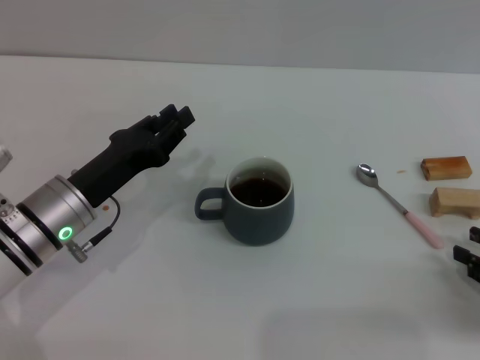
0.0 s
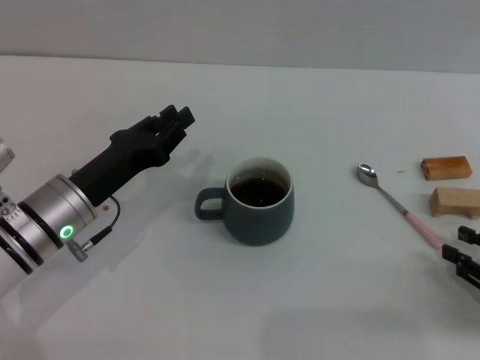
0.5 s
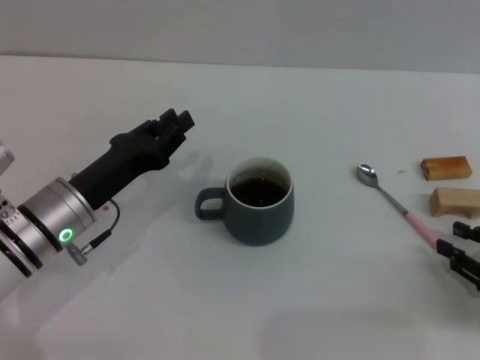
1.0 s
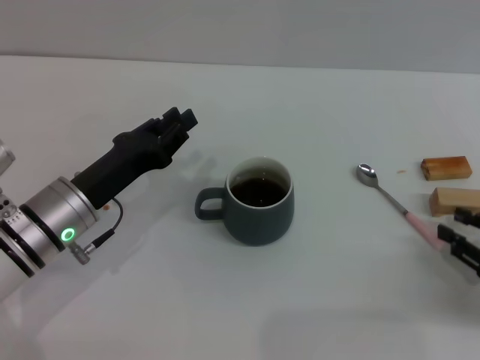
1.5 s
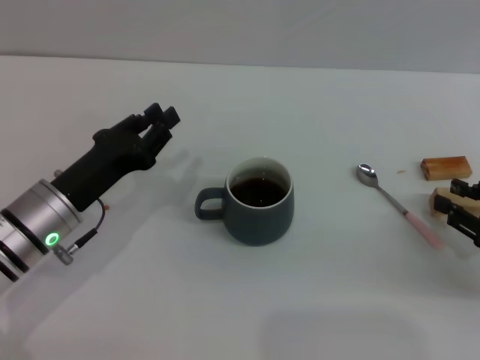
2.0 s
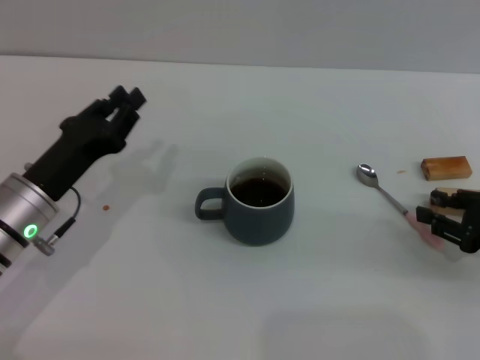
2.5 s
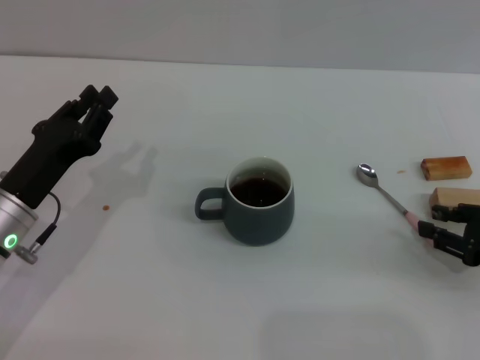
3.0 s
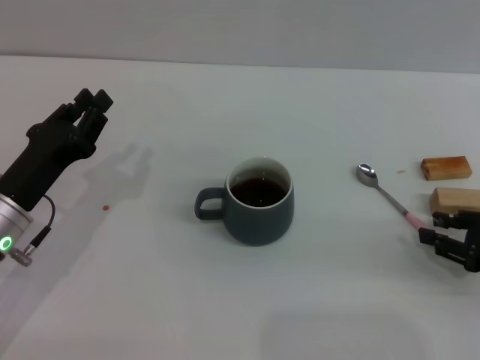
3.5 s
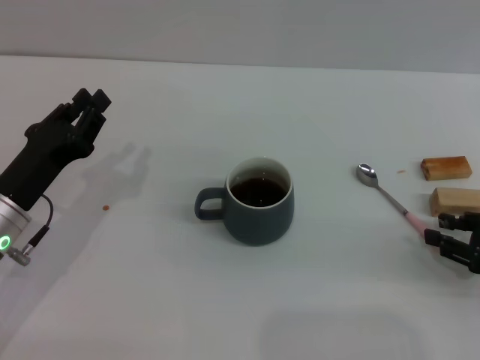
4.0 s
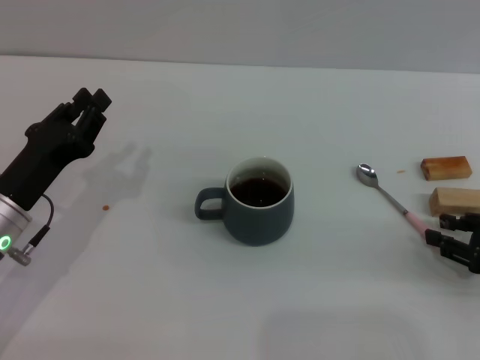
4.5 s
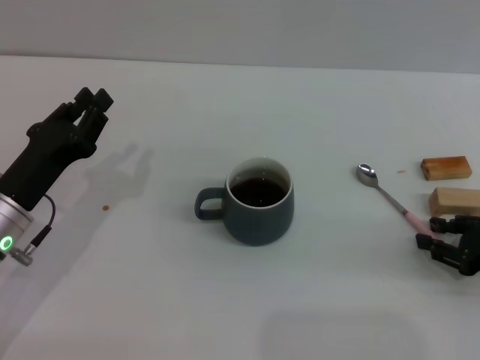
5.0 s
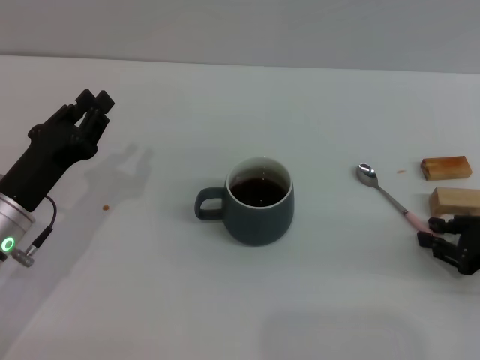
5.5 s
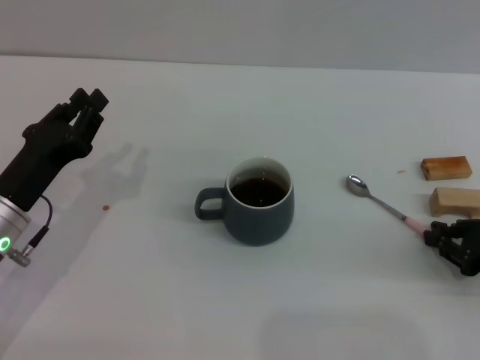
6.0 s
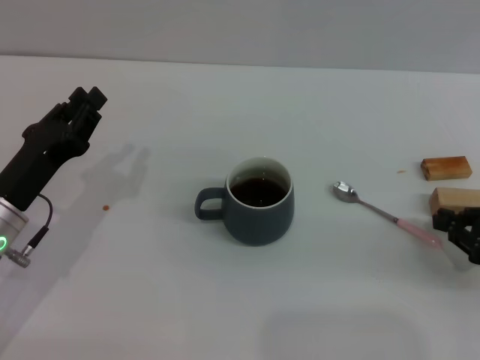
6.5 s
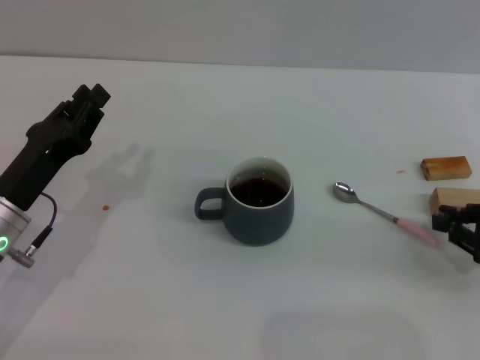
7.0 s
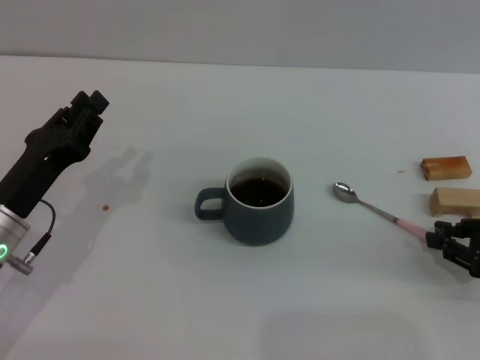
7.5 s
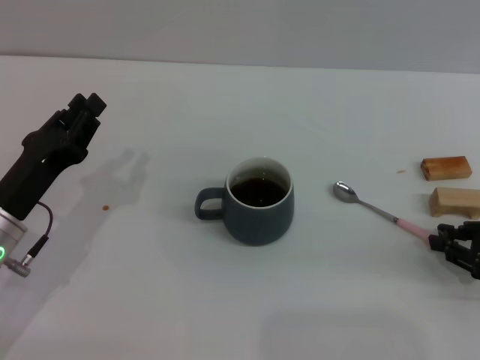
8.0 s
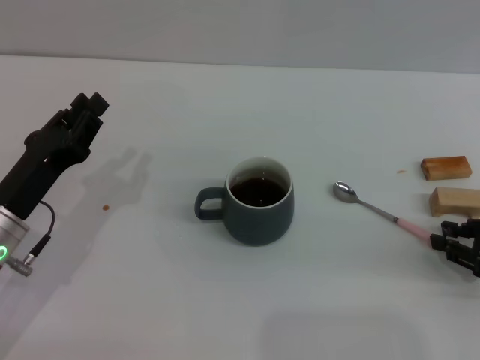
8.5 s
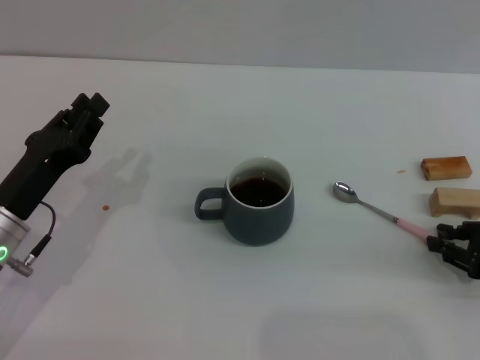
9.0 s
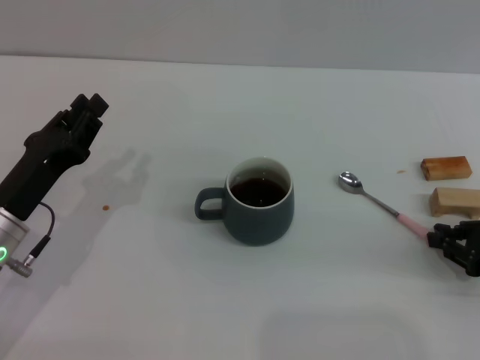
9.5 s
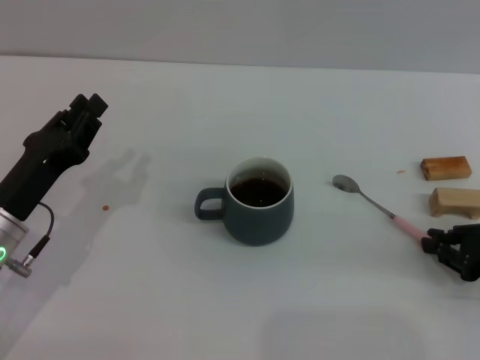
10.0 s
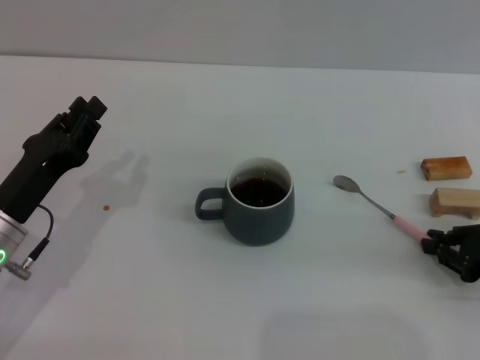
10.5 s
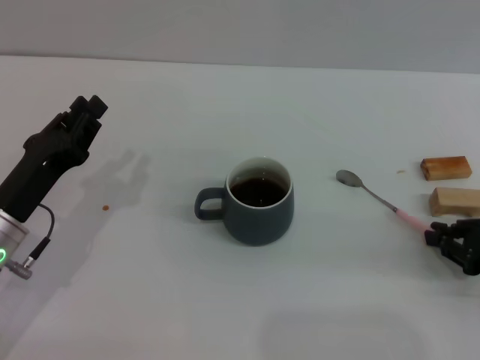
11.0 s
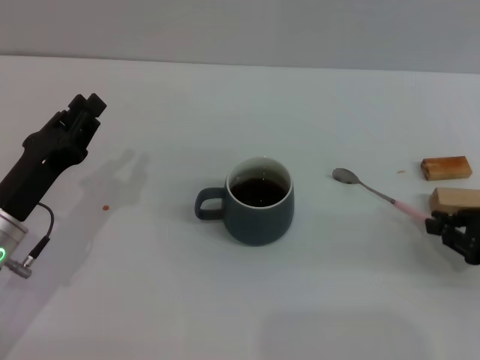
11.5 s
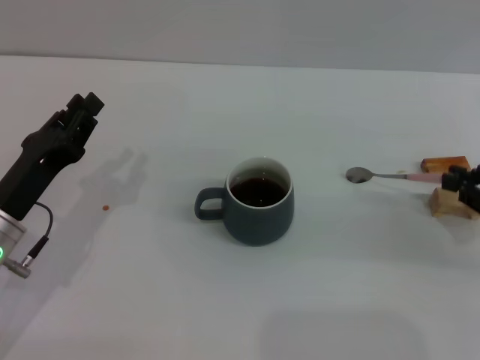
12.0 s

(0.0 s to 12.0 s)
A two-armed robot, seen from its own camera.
Task of the whole recording: Move the grey cup to the center, lift the pink spoon, stir it three times in the cup, and put the spoon into the cup.
0.0 s - 2.0 s: There are only small adjustments of the grippers.
2.0 s - 4.0 s: The grippers stay close to where they were, moving slightly.
4.0 s - 6.0 s: The right gripper closes its fingers.
6.0 s - 8.0 s: There are only small adjustments of the grippers.
8.0 s - 10.0 s: Both grippers stay put.
10.0 s - 12.0 s: The right gripper ends up approximately 5 cm from where it was.

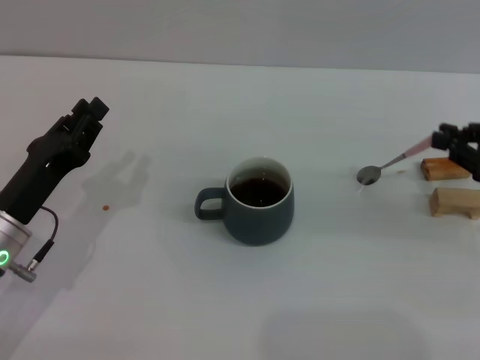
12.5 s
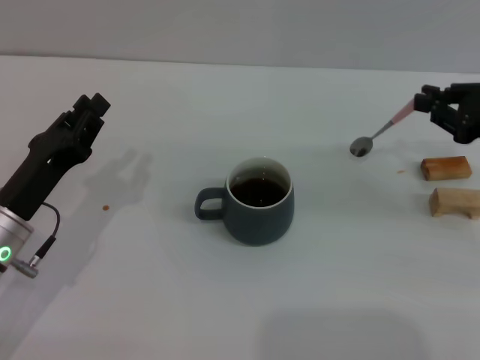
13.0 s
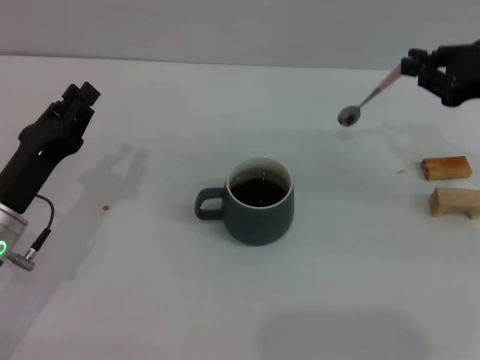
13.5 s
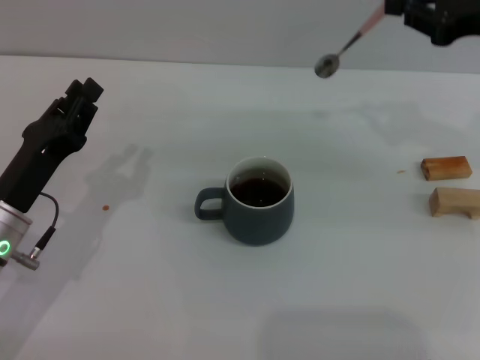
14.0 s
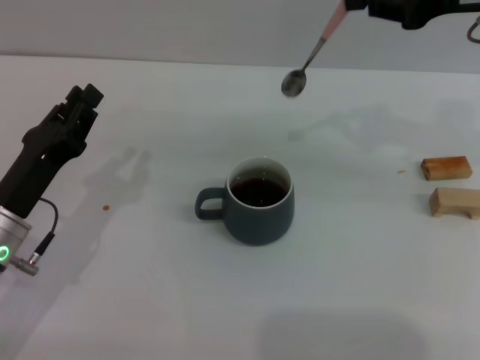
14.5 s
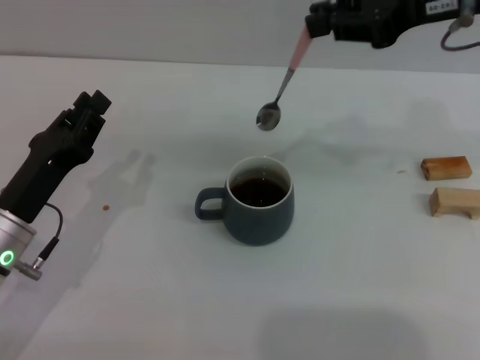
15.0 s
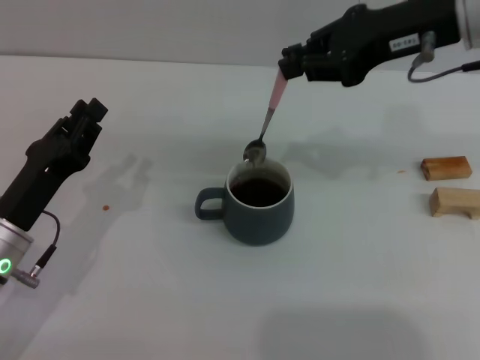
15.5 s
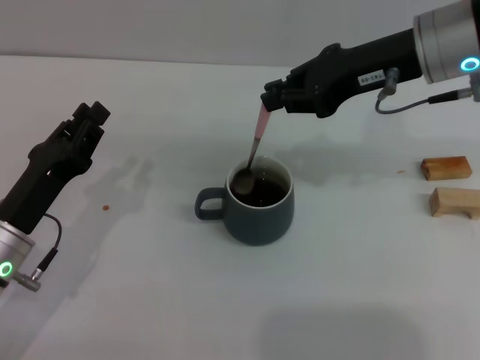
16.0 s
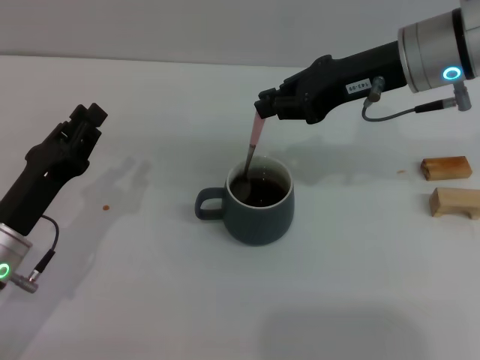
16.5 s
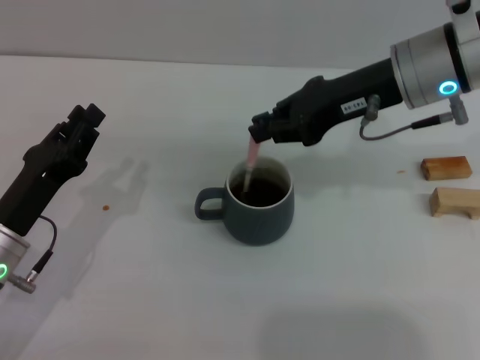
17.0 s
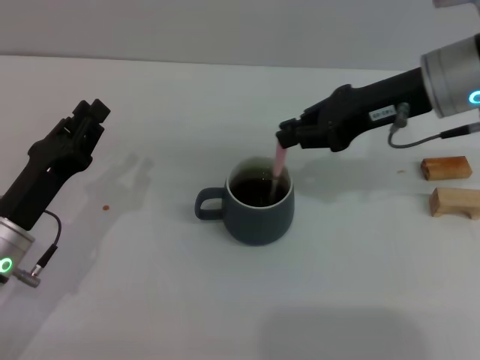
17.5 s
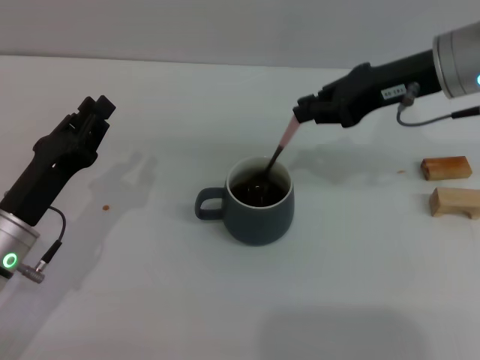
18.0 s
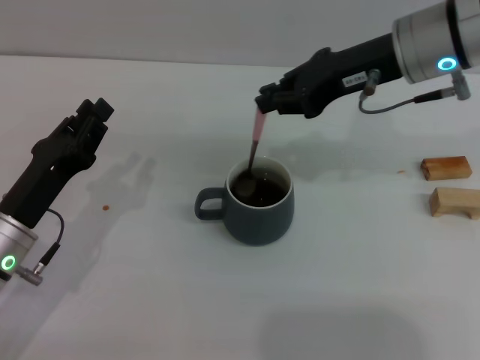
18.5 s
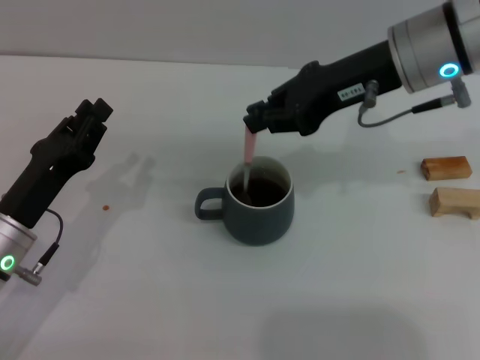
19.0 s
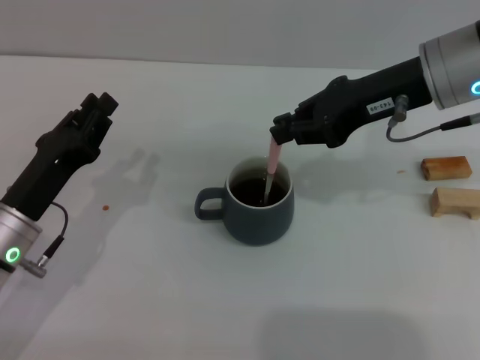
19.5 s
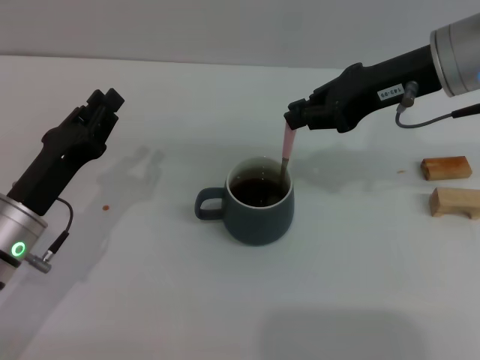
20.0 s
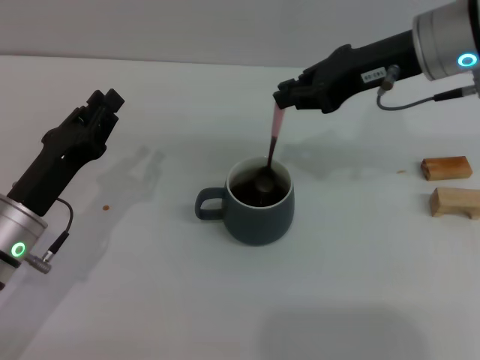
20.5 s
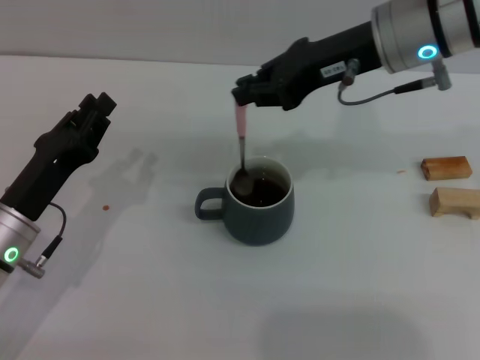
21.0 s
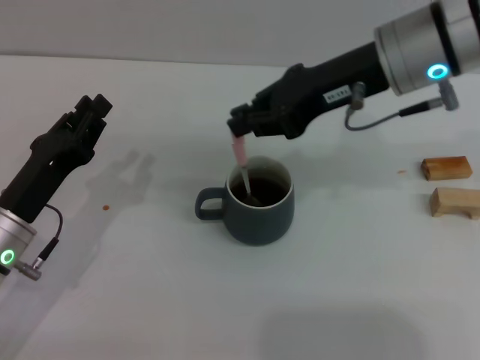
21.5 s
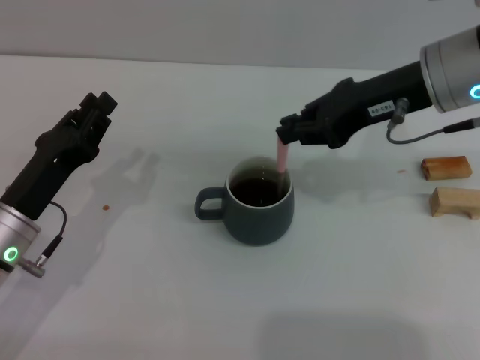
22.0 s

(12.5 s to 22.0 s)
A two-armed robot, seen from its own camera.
Task of the whole recording: Move the grey cup to the center, lift the pink spoon, stir it three times in the cup, and put the spoon into the cup.
12.5 s - 14.5 s: The right gripper goes some 20 cm upward, to the left and forward.
14.5 s - 16.5 s: The right gripper moves to the left and downward, roughly 10 cm.
16.5 s - 22.0 s: The grippers move only a little.

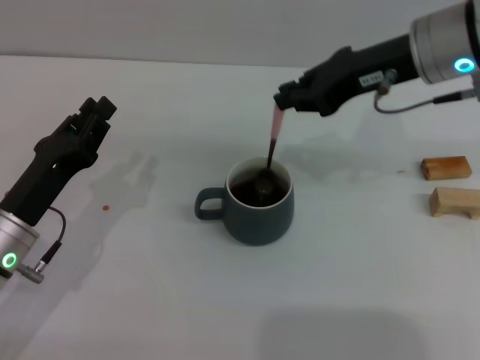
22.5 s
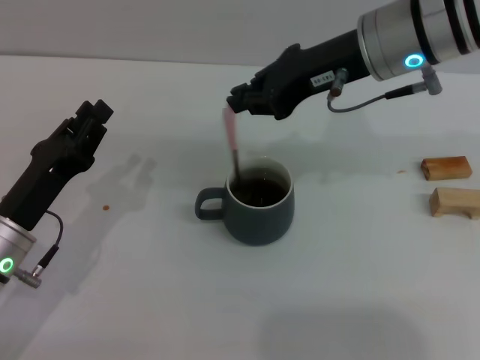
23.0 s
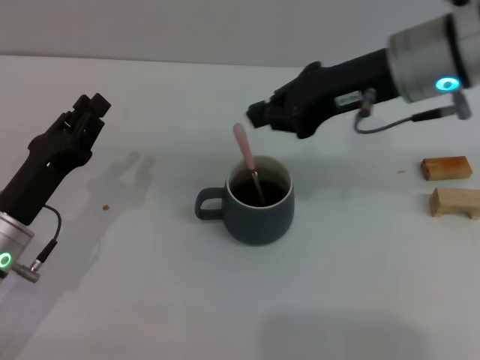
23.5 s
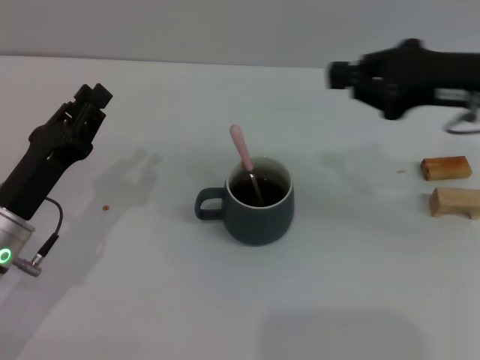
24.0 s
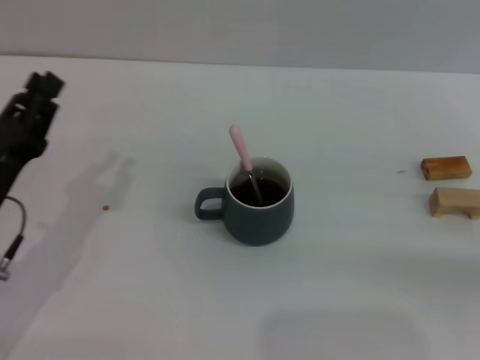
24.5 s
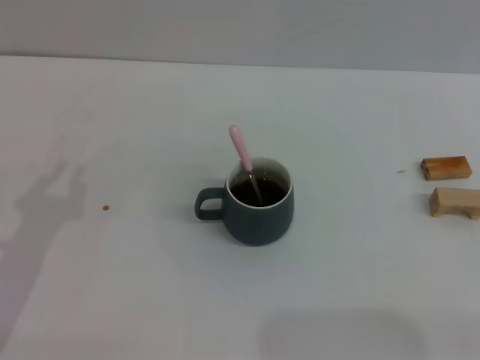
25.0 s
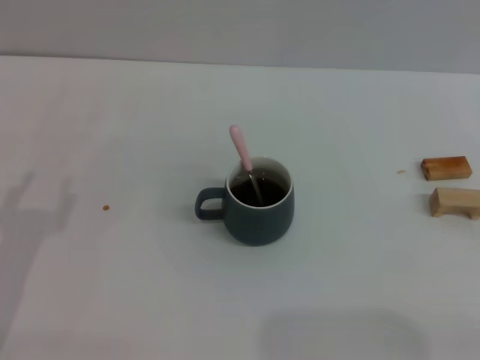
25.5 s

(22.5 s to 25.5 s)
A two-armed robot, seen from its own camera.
Task of the whole recording: Move the grey cup to the center, lift the pink spoon, stir it three times in the cup, and put the spoon into the cup.
22.5 s - 24.0 s: The right gripper shifts roughly 10 cm to the right and backward.
24.0 s - 25.5 s: The right gripper heads to the right, backward and downward, covering approximately 30 cm, and opens up. The left gripper travels backward and to the left by about 10 cm.

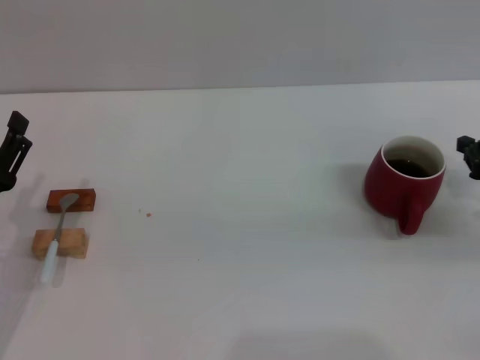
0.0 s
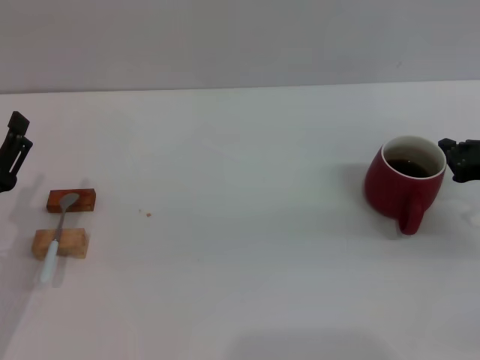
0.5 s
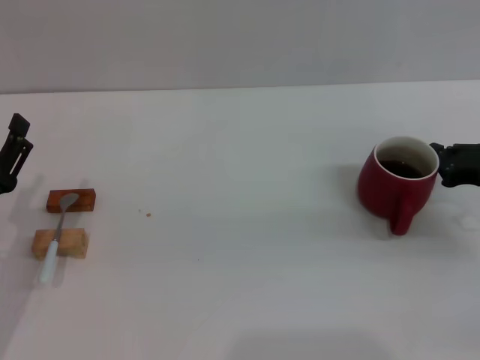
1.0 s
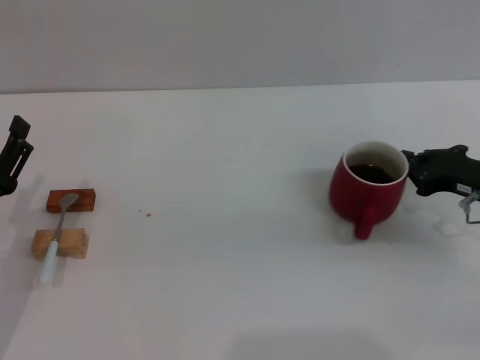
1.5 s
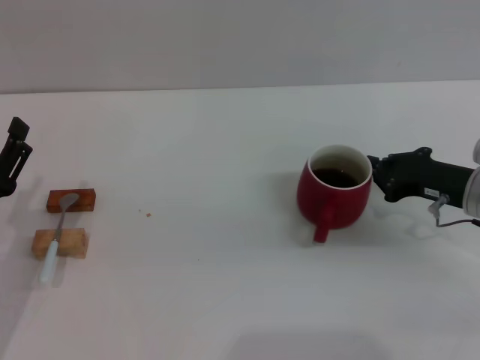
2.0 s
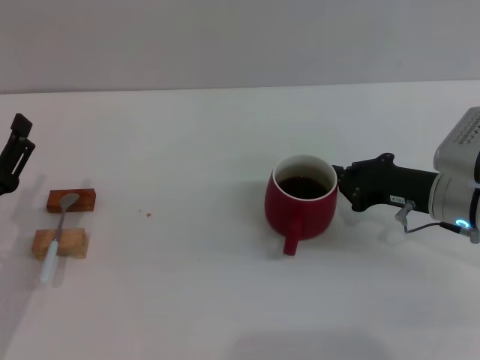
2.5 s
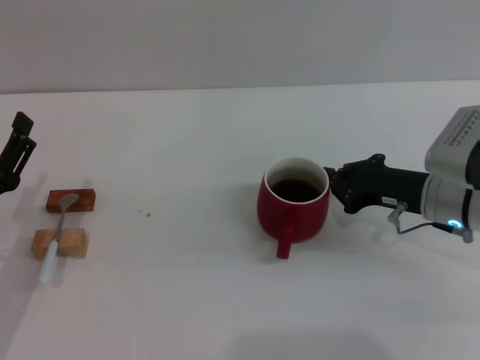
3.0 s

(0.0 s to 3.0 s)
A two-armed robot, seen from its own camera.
Task of the whole recording: Move the red cup to the center, lift the blue spoon, stir it three times in the cup, and put the spoon into the cup.
0.0 s - 1.5 s: The right gripper is displaced to the left by some 5 cm.
1.5 s - 3.0 s: The right gripper goes roughly 5 cm to the left.
